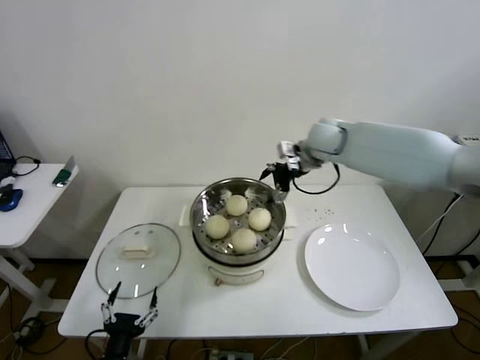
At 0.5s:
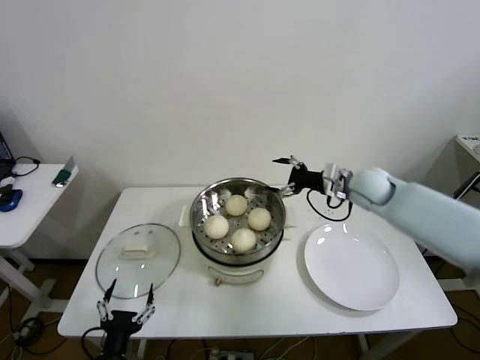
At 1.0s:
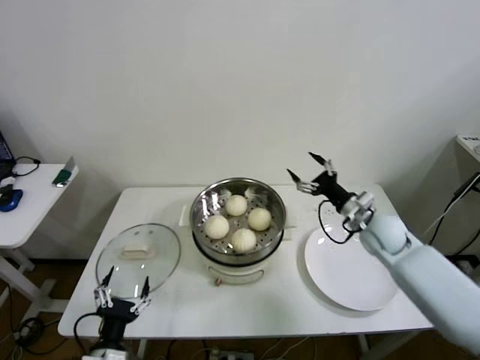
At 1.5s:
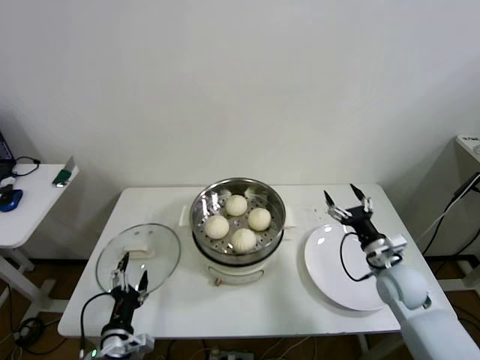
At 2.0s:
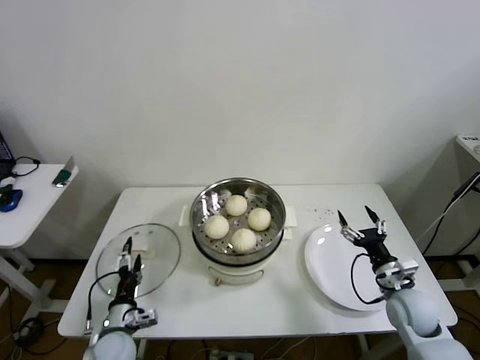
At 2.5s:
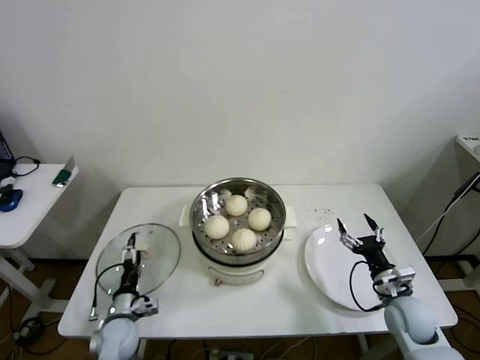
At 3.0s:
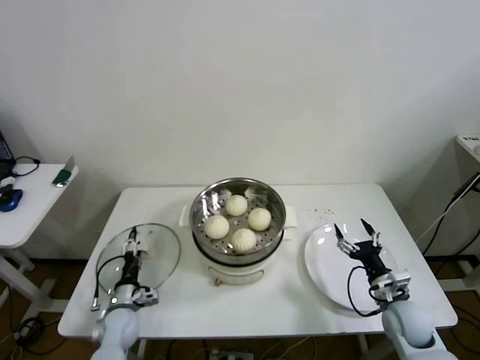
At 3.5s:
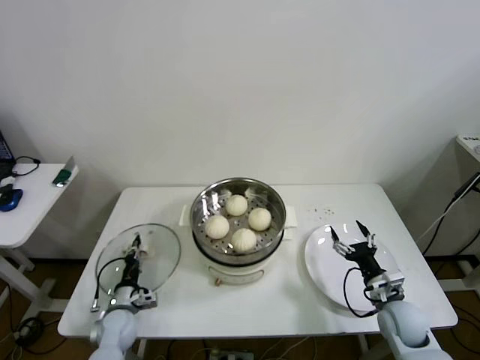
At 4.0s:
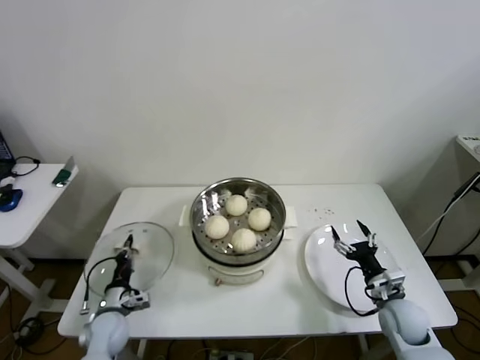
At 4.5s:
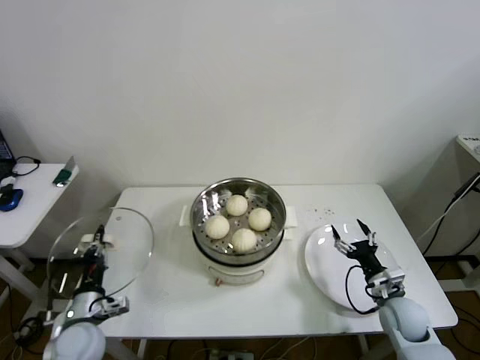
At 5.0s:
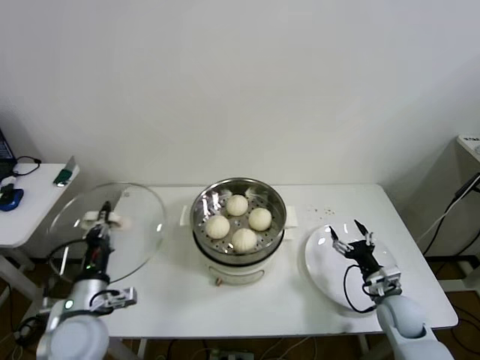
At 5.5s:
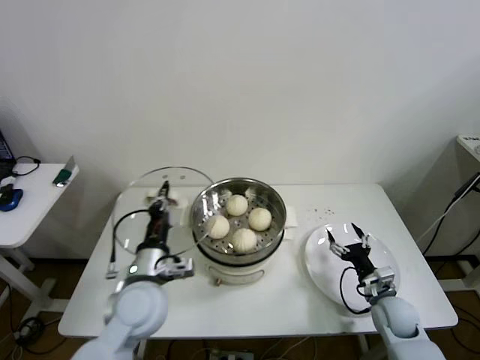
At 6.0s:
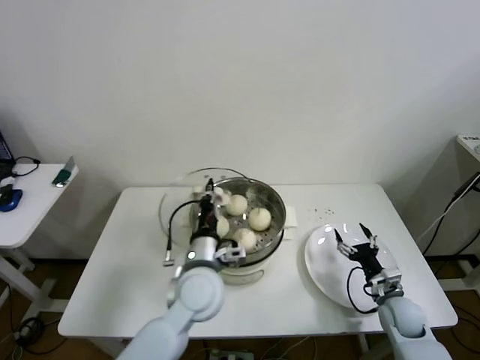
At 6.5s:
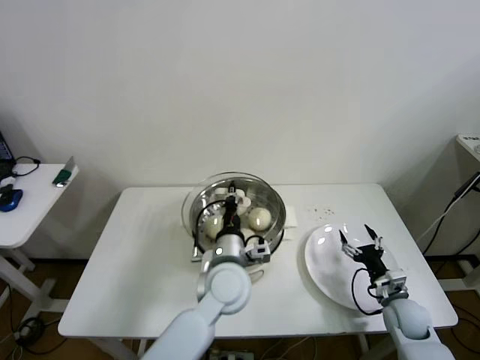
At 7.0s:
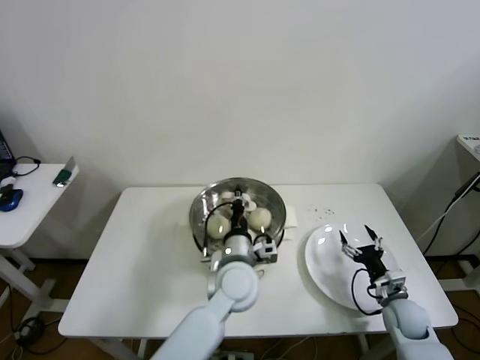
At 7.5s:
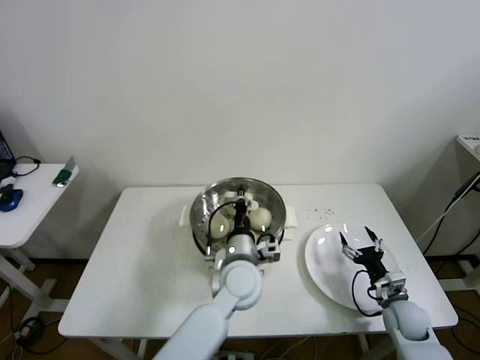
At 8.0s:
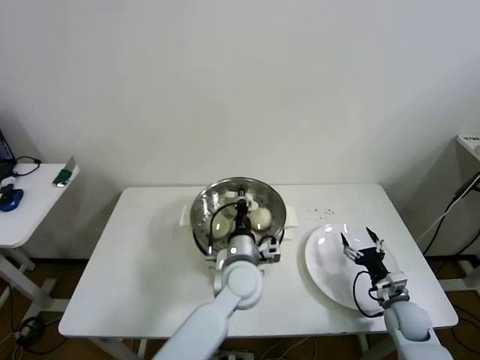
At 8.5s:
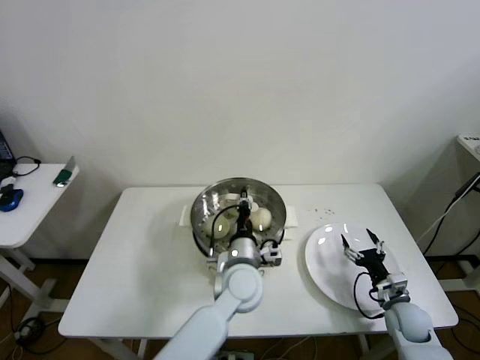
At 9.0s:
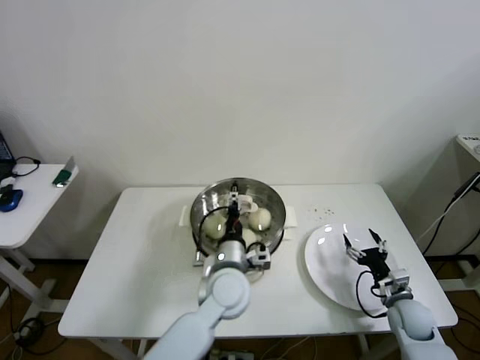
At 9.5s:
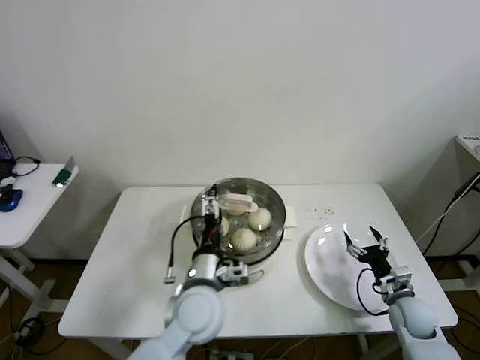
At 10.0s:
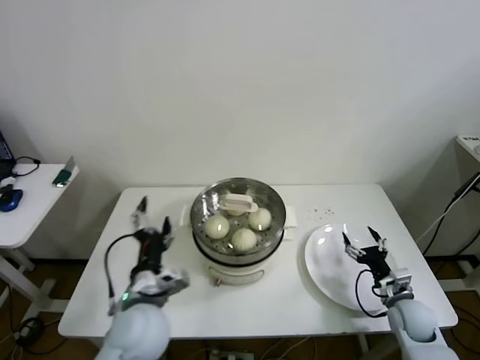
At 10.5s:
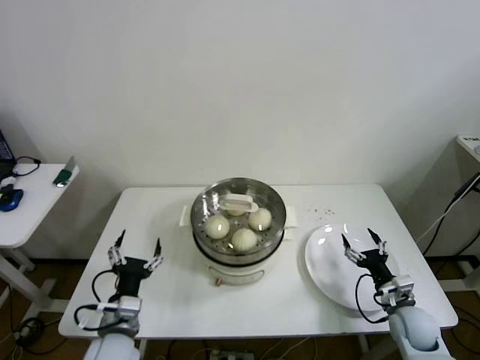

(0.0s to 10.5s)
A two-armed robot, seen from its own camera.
Step, 0.0s - 3.5s: Grasp the pot lid with left gripper.
Step, 4.0s - 9.0s: Place the pot lid on the steamer with left gripper.
0.0s - 2.0s: The right gripper moves backward, downward and to the right, approximately 40 cm; the left gripper heads forward, covering about 15 cm.
2.0s - 4.0s: The left gripper goes roughly 5 cm forward, and closes up.
4.0s - 6.5s: The left gripper travels to the right and upward by roughly 35 cm.
6.5s - 8.5s: The left gripper ends up some 5 cm from where it was.
8.5s - 10.5s: The left gripper heads to the left and backward, covering approximately 25 cm, and opens up.

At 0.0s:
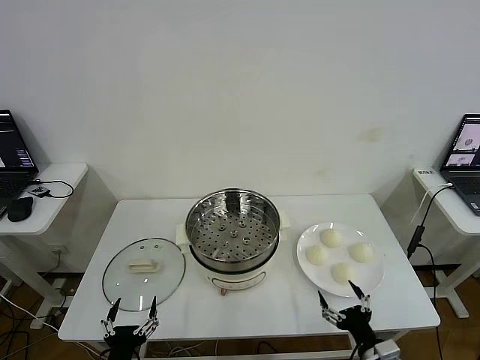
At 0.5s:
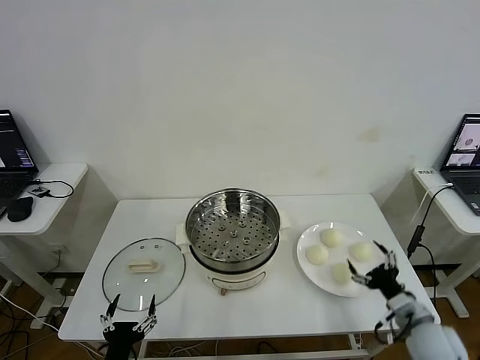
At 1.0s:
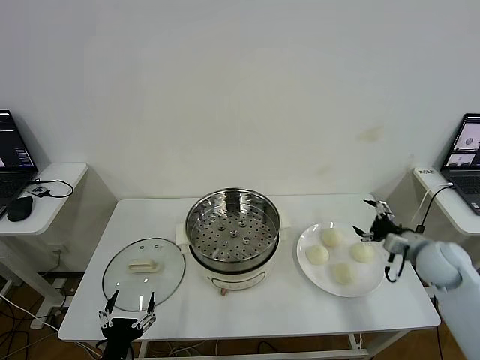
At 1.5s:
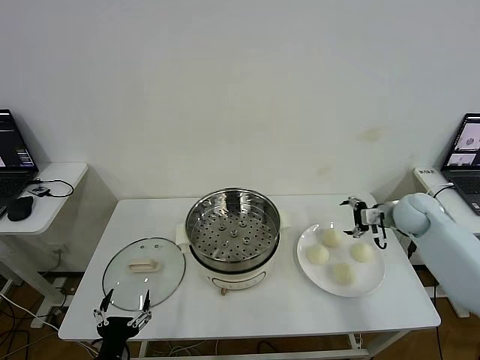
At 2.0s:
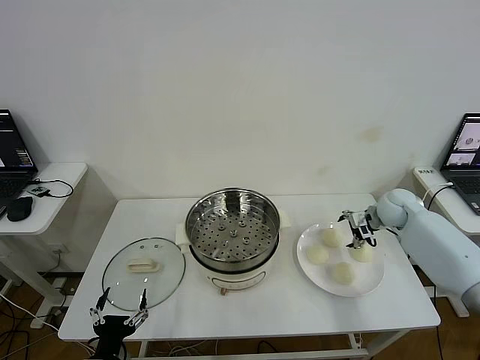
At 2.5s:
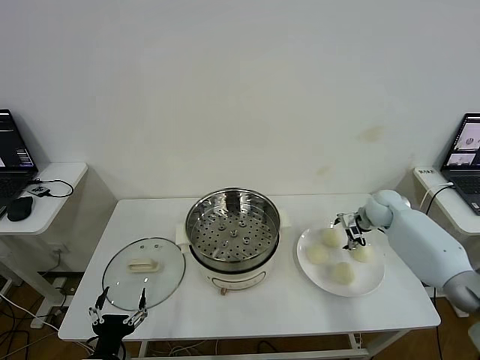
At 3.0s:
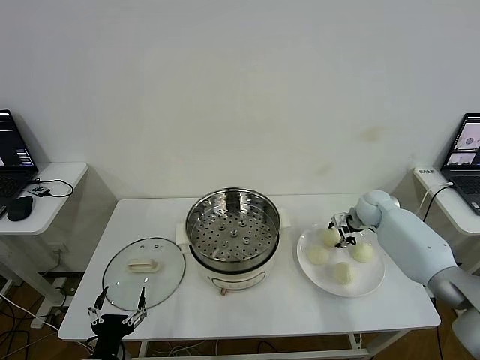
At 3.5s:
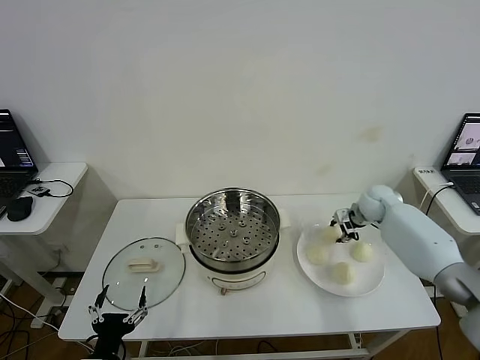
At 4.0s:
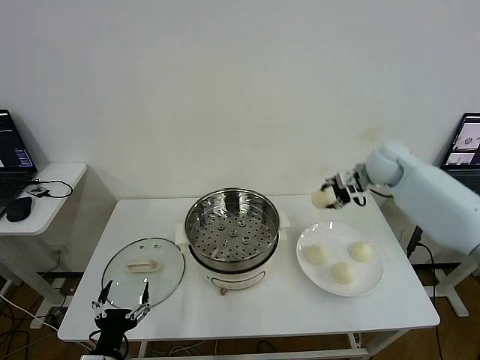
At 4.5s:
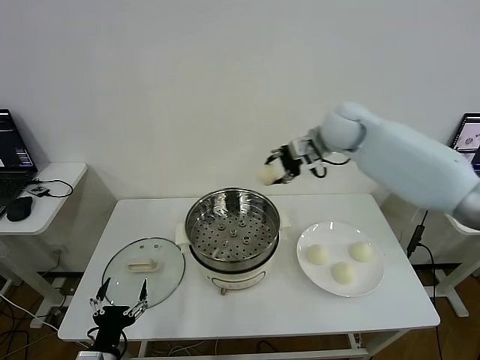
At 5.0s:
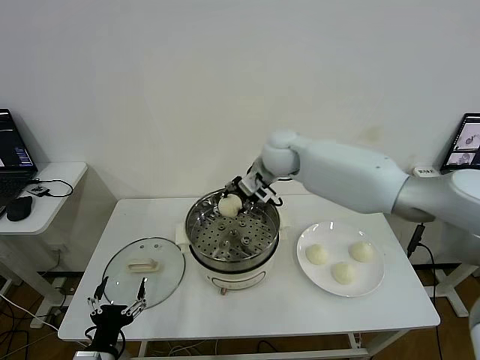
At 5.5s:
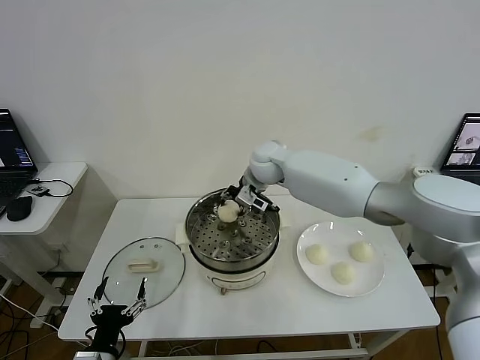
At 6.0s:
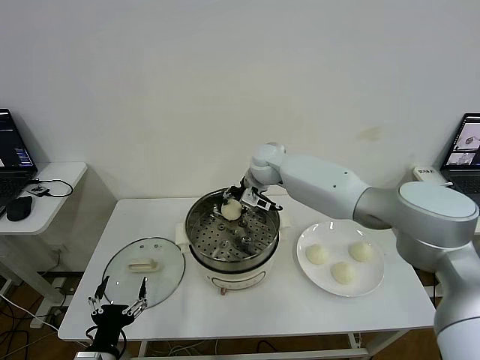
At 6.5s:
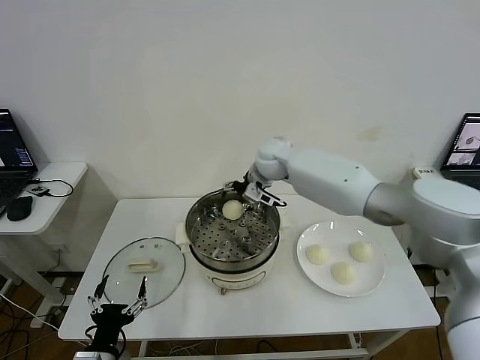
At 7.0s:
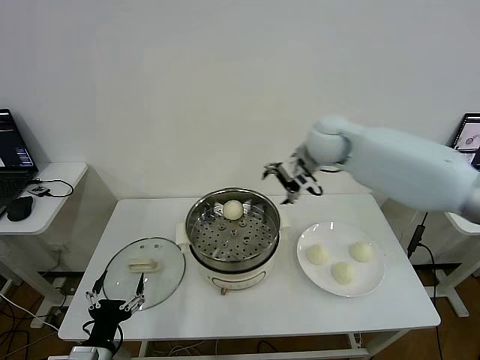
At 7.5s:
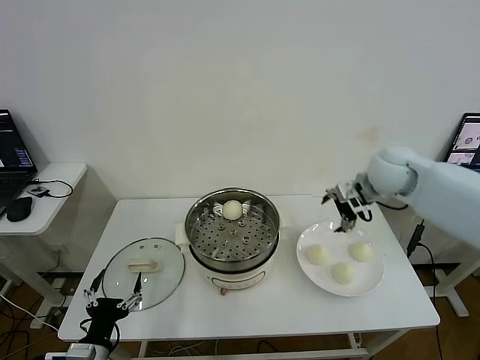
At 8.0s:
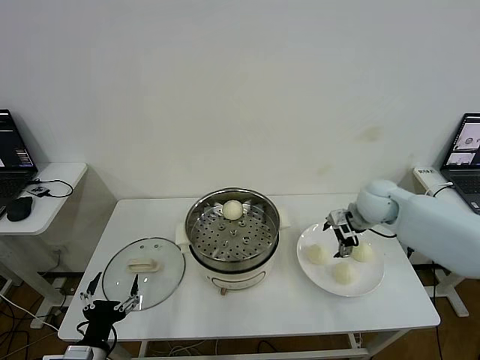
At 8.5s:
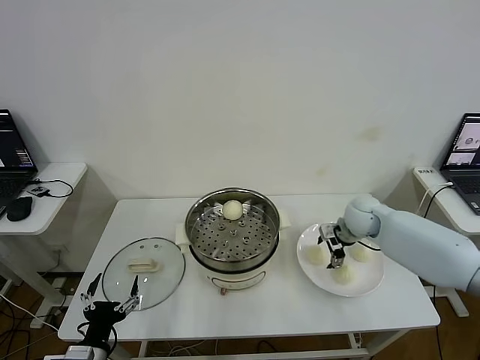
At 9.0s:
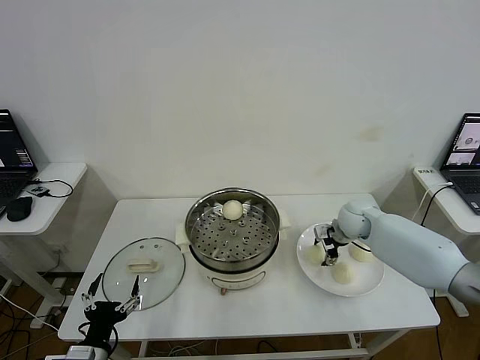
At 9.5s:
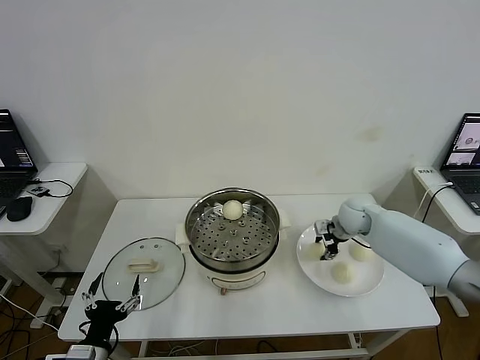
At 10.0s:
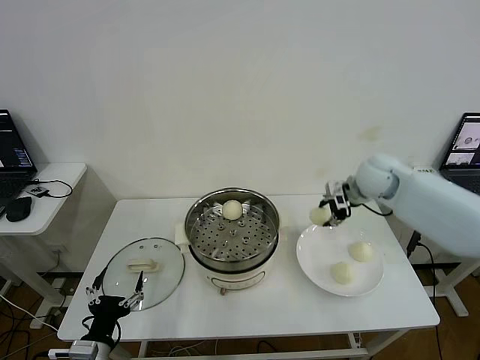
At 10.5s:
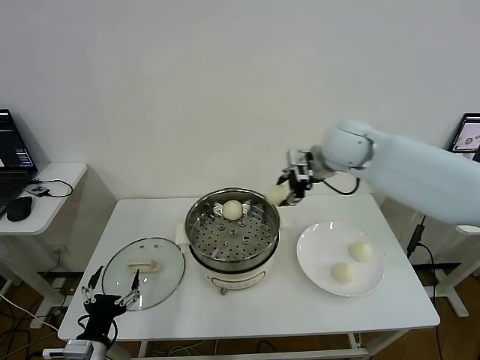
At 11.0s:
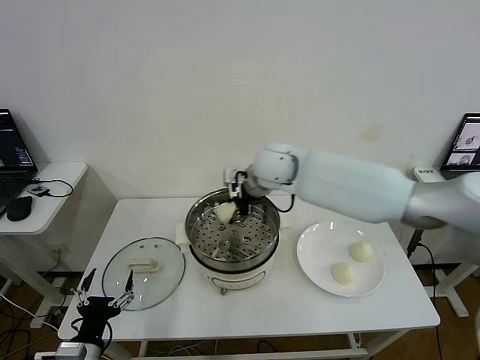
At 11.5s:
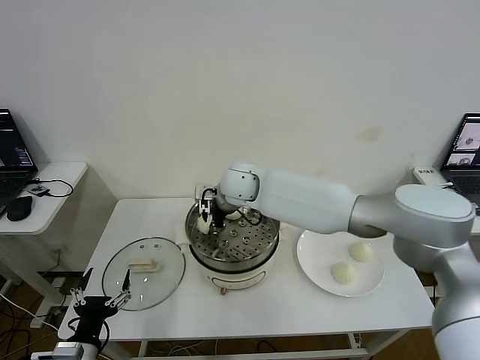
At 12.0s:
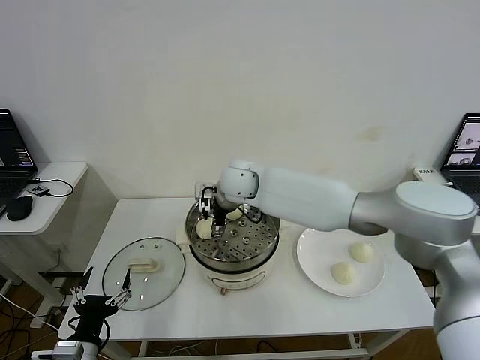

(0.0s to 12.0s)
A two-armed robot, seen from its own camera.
Step, 0.0s - 3.0s: Grasp the baozi in the plate with right gripper.
Step, 3.5s - 6.0s: Place the baozi on the steamer with right gripper.
Step, 6.5s - 9.0s: Grasp the baozi in the plate with right gripper.
Step, 9.5s - 11.5s: Place the baozi on the steamer with right gripper.
2.0s - 4.0s: The right gripper shifts approximately 15 cm upward and to the left, and closes up.
4.0s - 6.0s: The right gripper travels to the left by approximately 30 cm.
6.0s - 8.0s: The right gripper travels to the right by some 25 cm, and opens up.
8.0s - 10.0s: The right gripper closes.
10.0s - 12.0s: The right gripper goes roughly 30 cm to the left, and opens up.

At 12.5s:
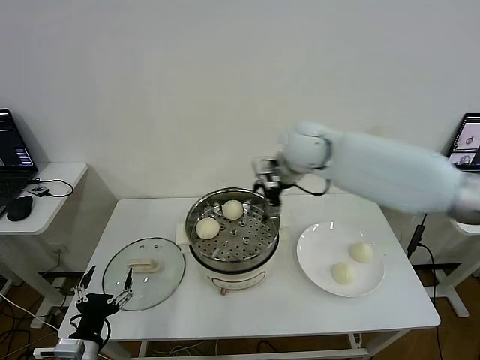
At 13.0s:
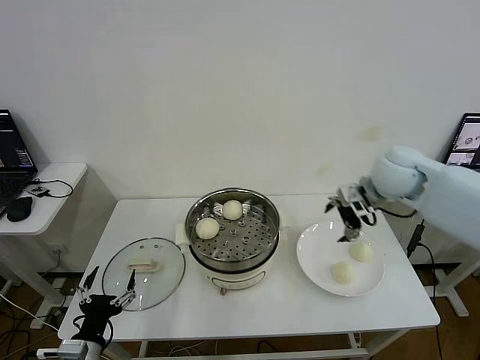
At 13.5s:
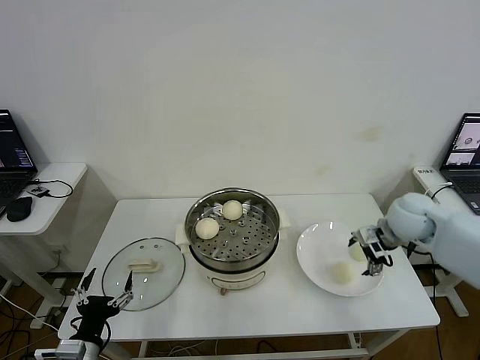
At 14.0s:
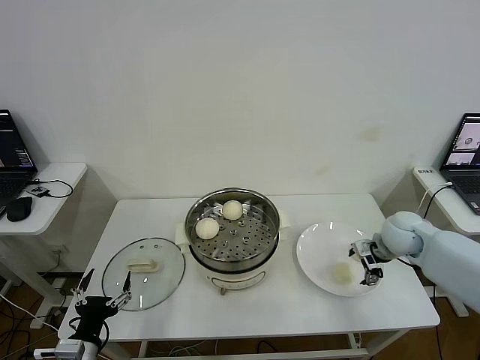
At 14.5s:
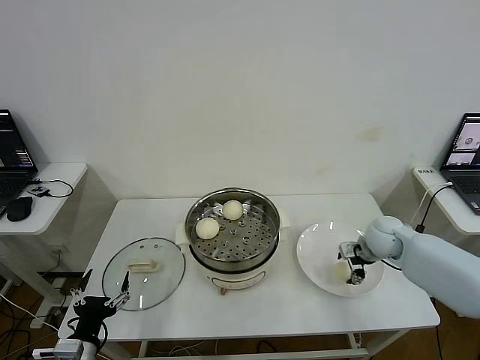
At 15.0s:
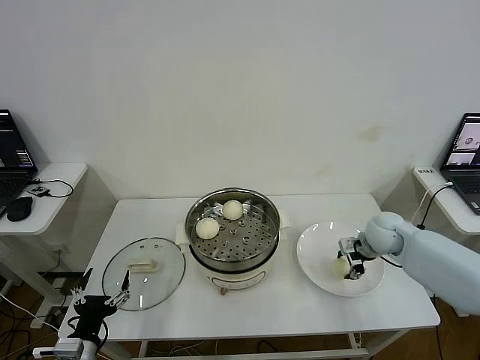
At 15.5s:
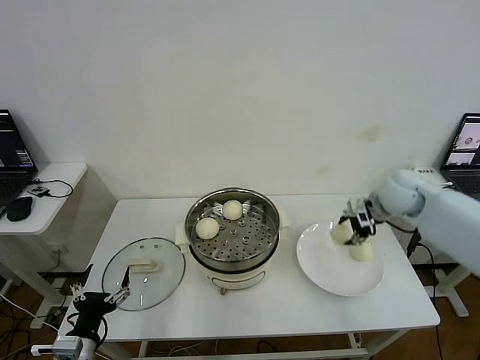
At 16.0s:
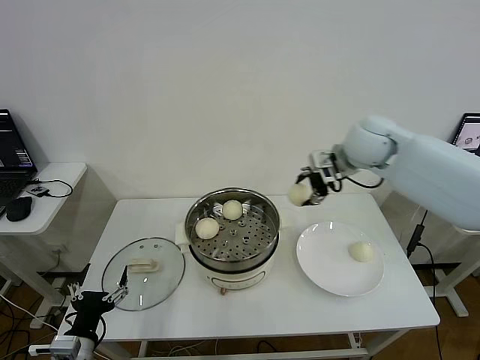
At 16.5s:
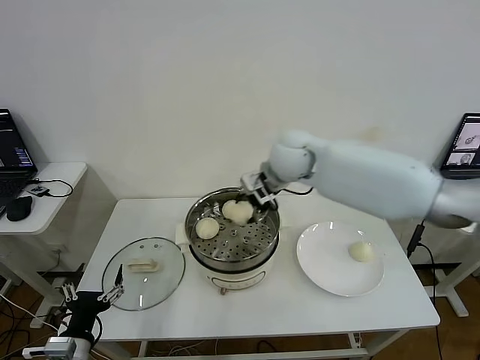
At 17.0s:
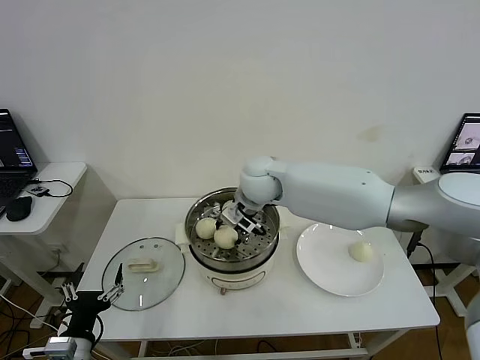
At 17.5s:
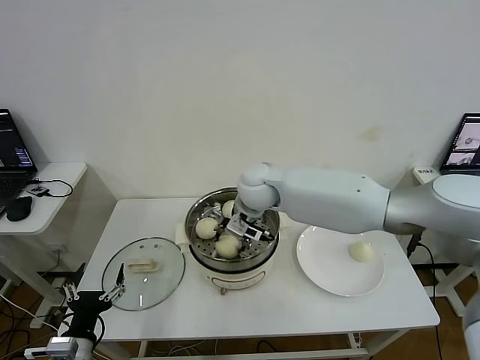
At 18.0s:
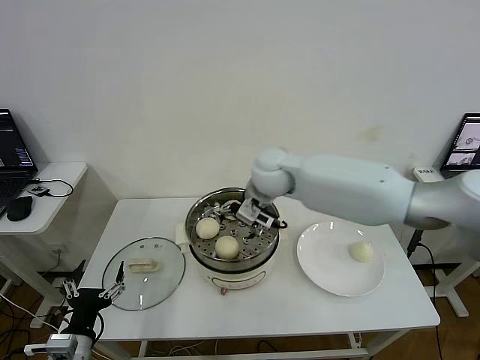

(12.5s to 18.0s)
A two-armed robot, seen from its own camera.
Step, 12.5s - 14.5s: Grasp the baozi in the plate with right gripper.
Step, 15.0s - 17.5s: Place the baozi on the steamer with right gripper.
12.5s - 14.5s: The right gripper shifts approximately 30 cm to the right and downward.
14.5s - 16.0s: The right gripper travels upward and to the left by roughly 25 cm, and closes its fingers.
16.0s - 18.0s: The right gripper goes approximately 20 cm to the left, and opens its fingers.
